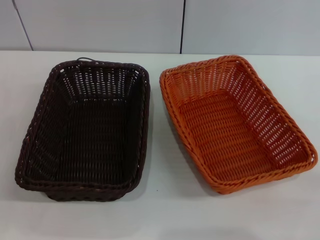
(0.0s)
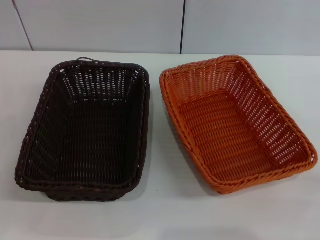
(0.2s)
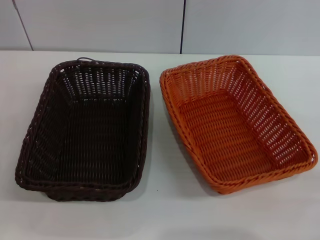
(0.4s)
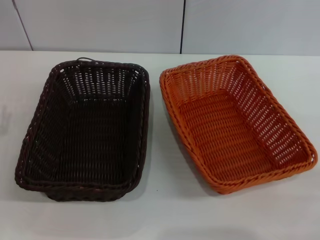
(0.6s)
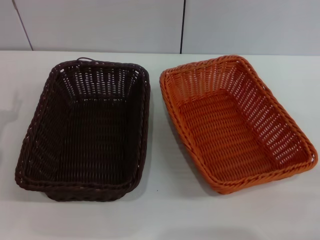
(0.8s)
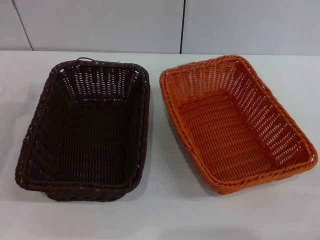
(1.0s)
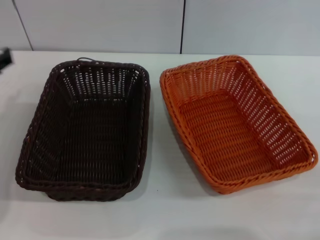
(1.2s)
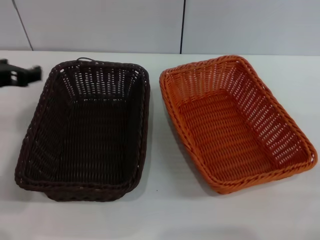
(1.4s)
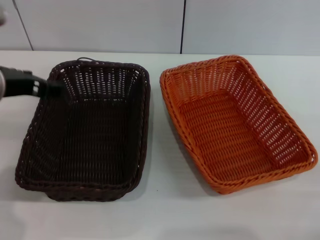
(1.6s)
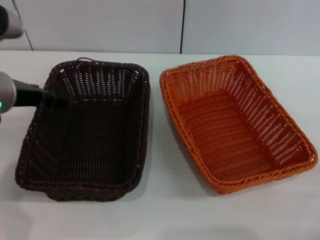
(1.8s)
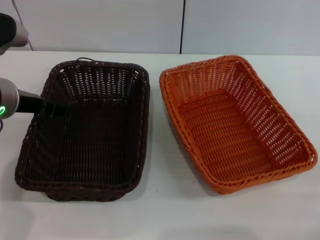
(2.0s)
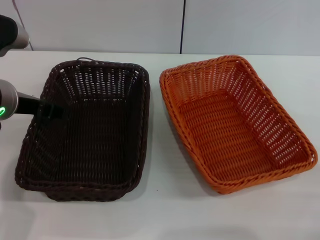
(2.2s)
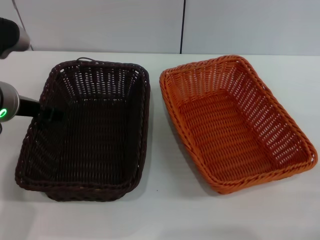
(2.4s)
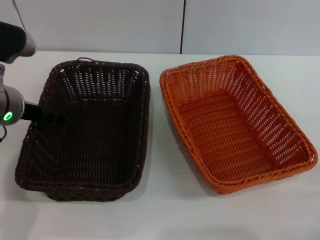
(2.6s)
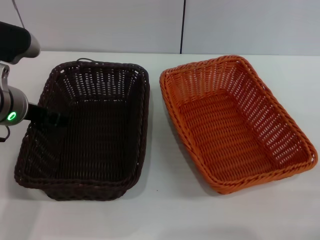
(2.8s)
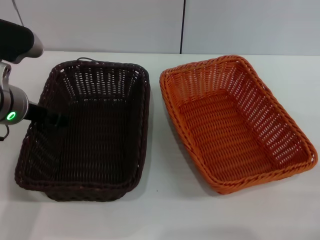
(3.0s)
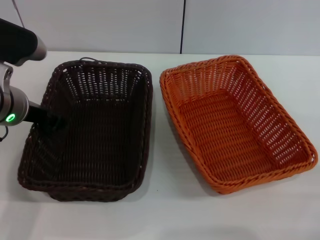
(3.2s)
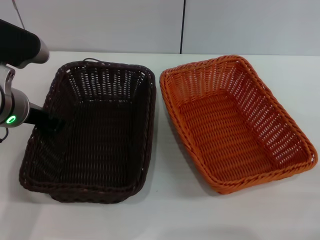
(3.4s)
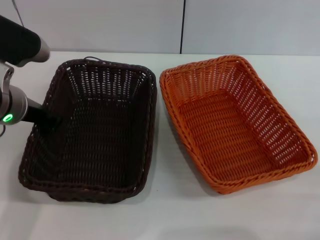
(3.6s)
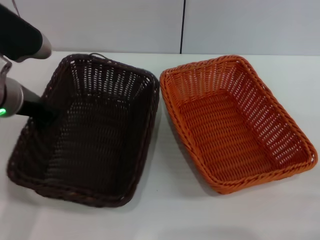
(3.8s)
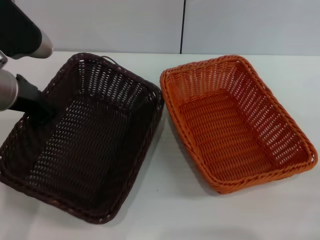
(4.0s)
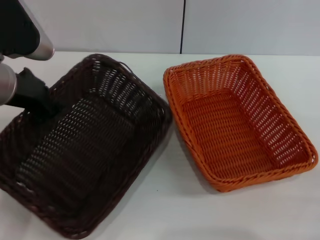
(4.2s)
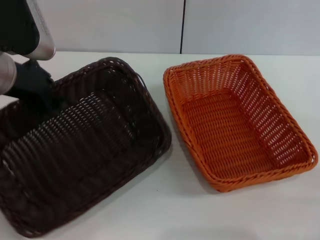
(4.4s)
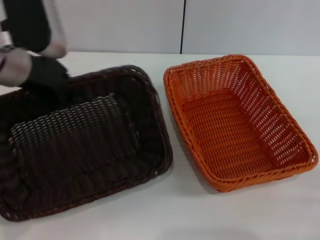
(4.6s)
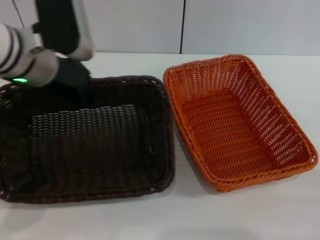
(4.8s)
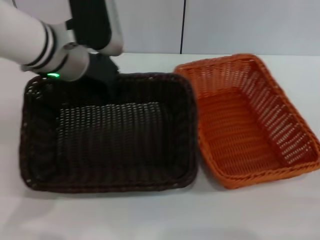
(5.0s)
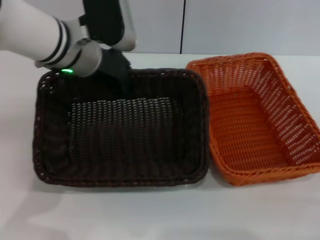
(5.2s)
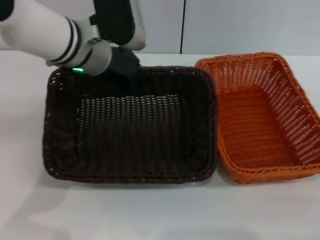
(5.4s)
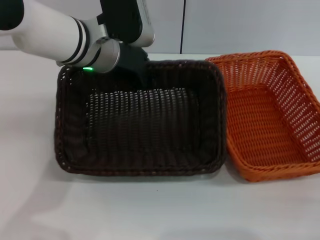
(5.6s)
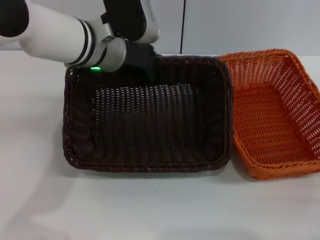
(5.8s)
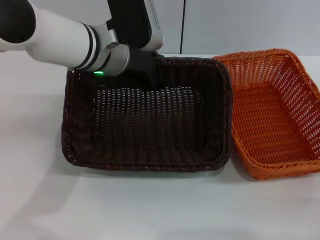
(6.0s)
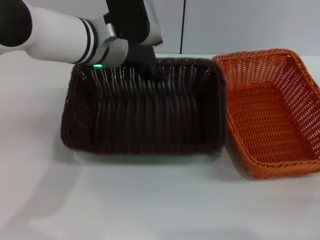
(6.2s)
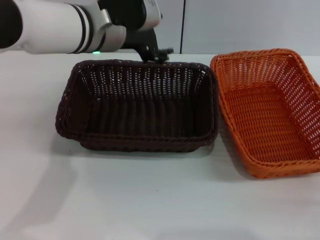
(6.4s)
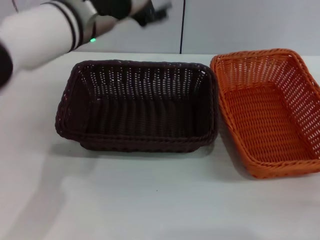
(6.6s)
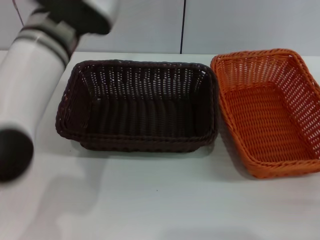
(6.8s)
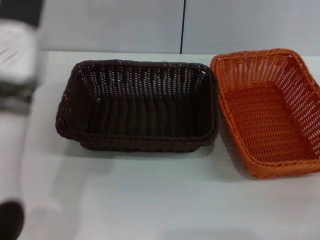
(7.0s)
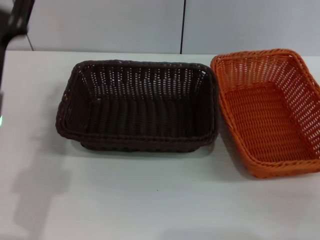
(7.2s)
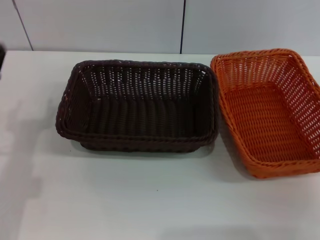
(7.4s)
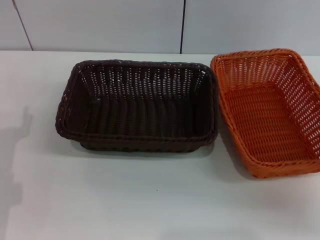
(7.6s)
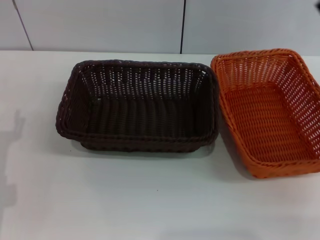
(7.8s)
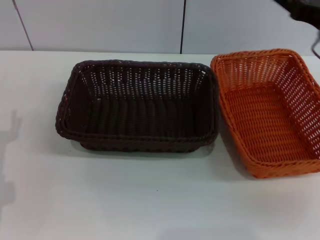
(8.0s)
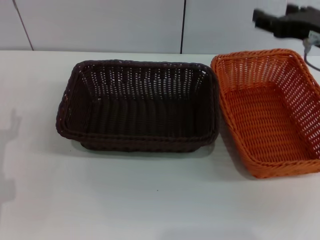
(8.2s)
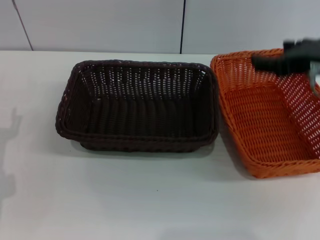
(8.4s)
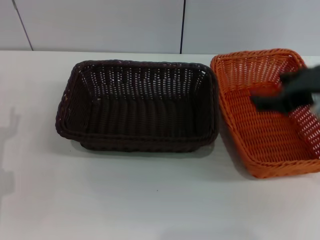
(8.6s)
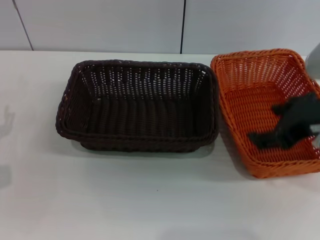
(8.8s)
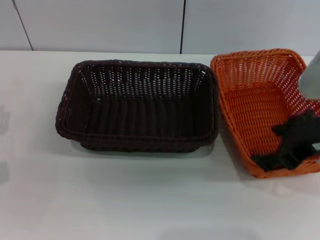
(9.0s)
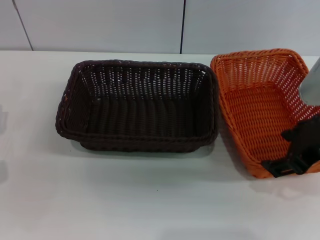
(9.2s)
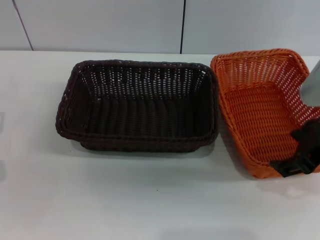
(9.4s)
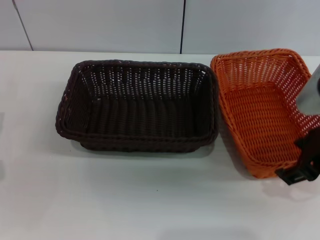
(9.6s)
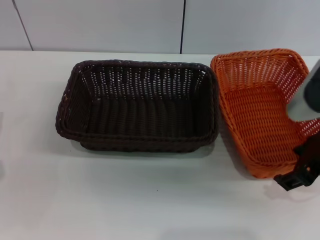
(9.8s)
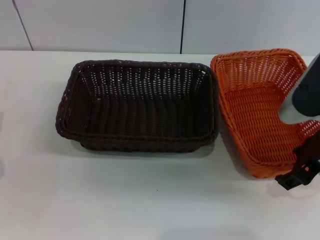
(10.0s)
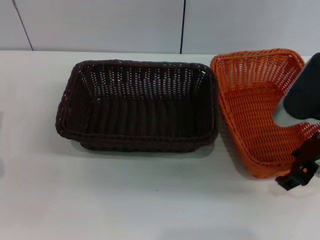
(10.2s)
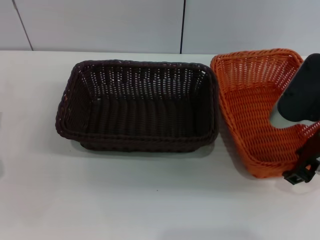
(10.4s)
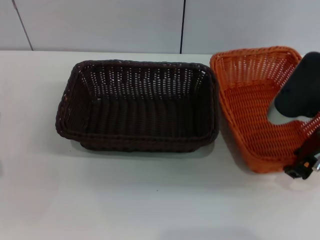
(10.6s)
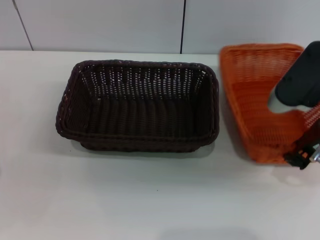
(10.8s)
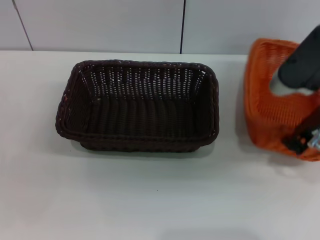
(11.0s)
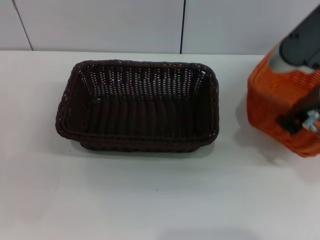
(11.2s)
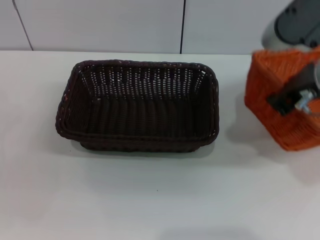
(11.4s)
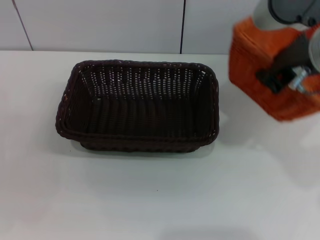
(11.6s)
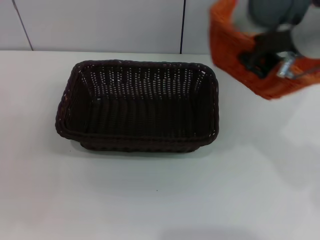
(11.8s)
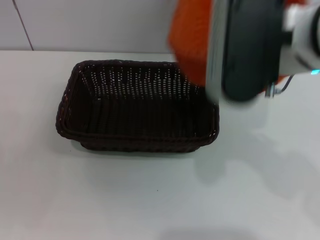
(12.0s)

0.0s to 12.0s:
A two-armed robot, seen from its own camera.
Step, 0.0s to 3.8s: Pick up the dark basket with the left gripper.
Step, 4.2s to 6.2s: Place the dark basket in the center of view with the left gripper.
Step, 6.4s to 11.0s: Pick up the light basket with the right gripper.
0.0s to 1.6s: The left gripper heads upward, to the right and forward, covering approximately 20 cm.
1.6s to 3.0s: The left gripper moves approximately 5 cm.
3.0s to 4.4s: The left gripper heads upward, covering approximately 5 cm, and closes.
4.4s to 6.0s: The left gripper heads to the right and forward, covering some 15 cm.
6.0s to 7.6s: The left gripper goes roughly 30 cm to the left, backward and downward, and opens, while the right gripper goes about 15 cm forward, upward and to the left.
7.6s to 9.0s: The right gripper moves upward and to the left, roughly 15 cm.
9.0s to 10.4s: The right gripper heads downward, covering about 5 cm.
10.4s to 12.0s: The right gripper goes some 15 cm upward and to the left, and closes up.

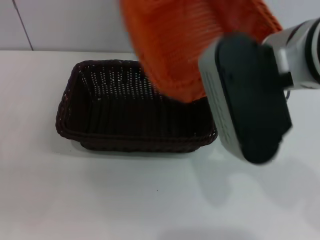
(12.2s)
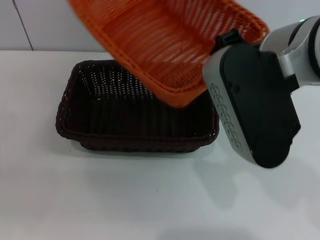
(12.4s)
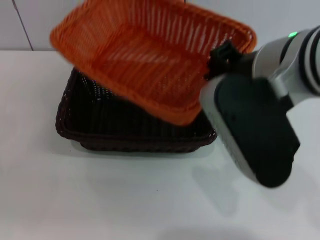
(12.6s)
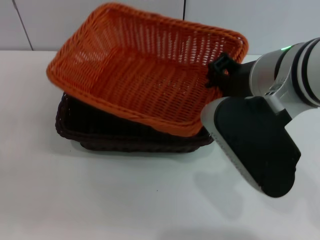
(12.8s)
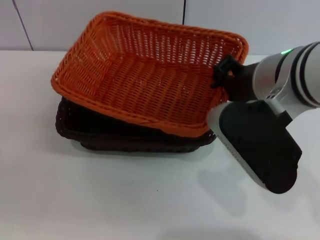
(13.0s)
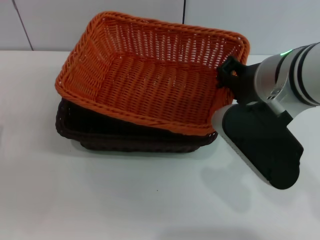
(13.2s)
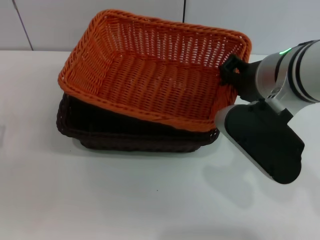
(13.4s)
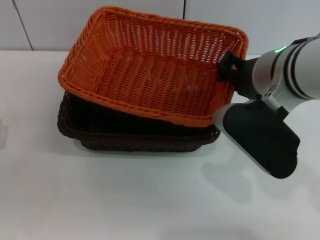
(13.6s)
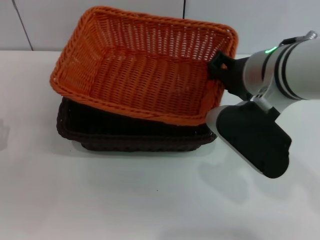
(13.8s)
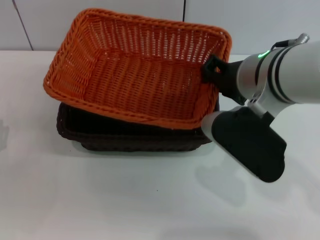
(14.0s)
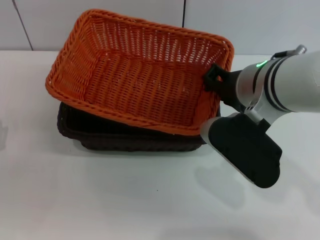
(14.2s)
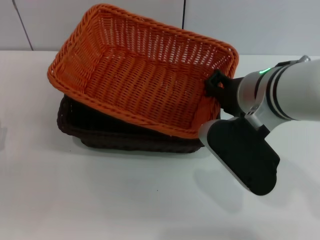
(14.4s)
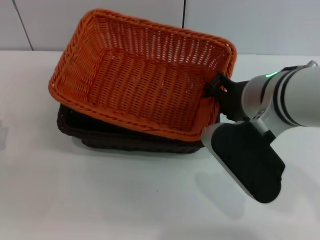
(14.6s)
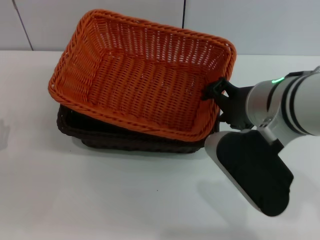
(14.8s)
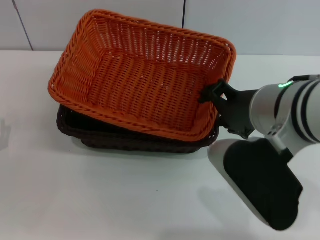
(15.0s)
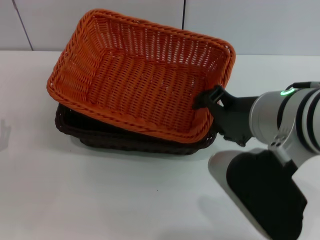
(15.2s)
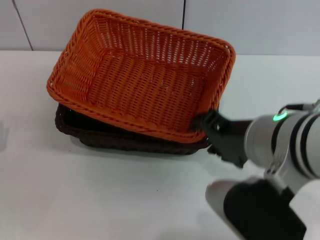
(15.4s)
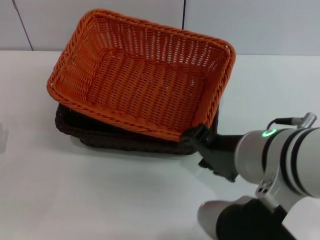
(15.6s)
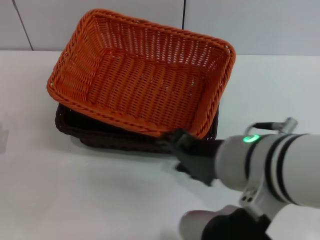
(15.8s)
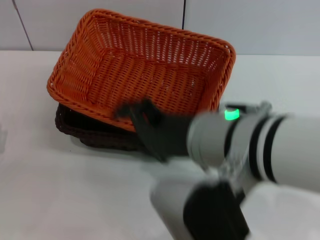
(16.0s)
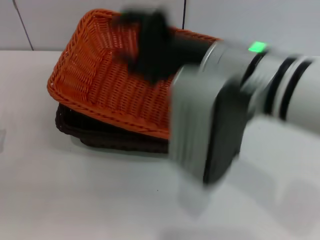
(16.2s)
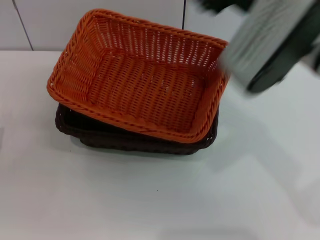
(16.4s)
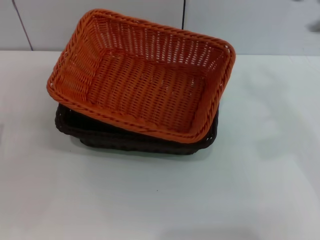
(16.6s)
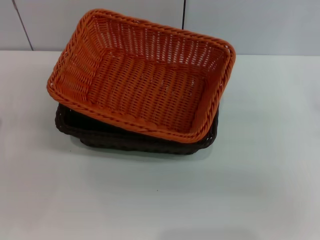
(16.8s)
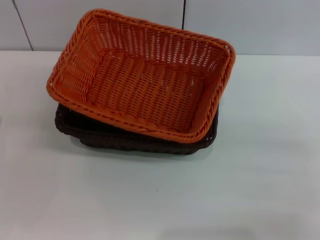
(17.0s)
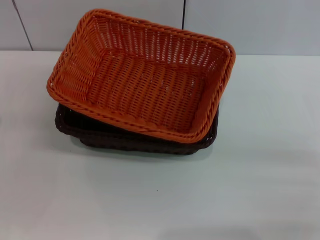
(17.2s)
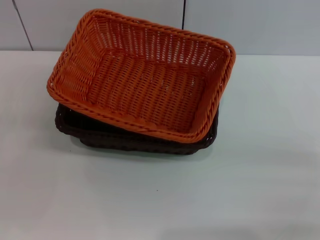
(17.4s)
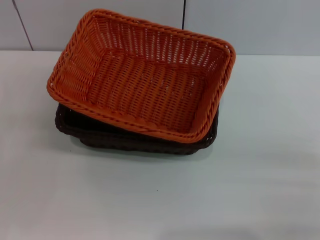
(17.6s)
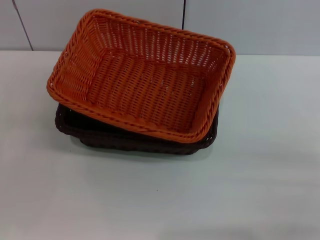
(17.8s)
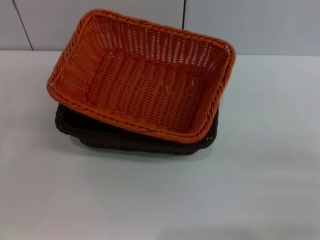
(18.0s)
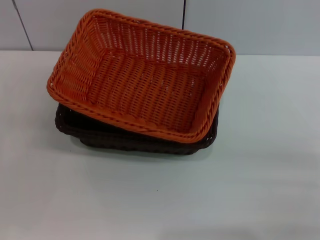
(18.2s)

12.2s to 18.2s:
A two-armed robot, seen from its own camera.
Step, 12.2s to 15.2s: Place the light basket on the dark basket with the right gripper.
12.2s to 13.8s: The right gripper heads downward, covering about 5 cm.
13.8s to 15.2s: The right gripper travels backward by approximately 5 cm, and opens its fingers.
15.2s to 16.6s: The right gripper is displaced to the right and forward by approximately 10 cm.
16.6s to 18.2s: The right gripper shifts some 20 cm downward, to the right and backward.

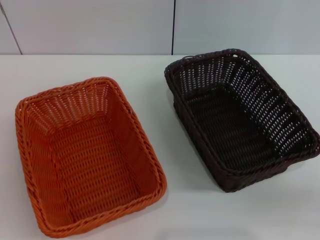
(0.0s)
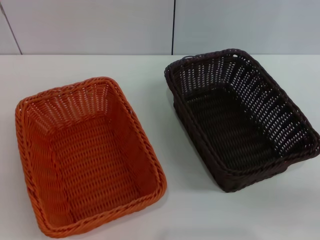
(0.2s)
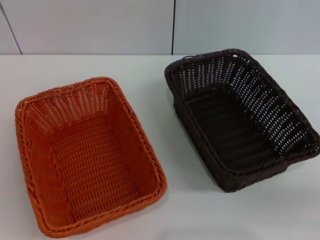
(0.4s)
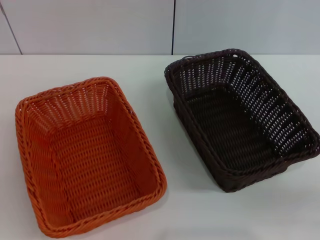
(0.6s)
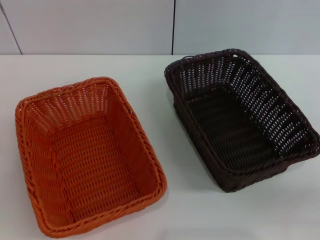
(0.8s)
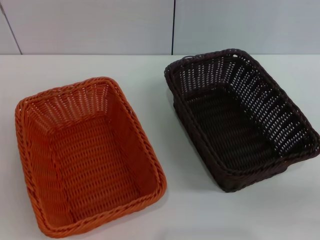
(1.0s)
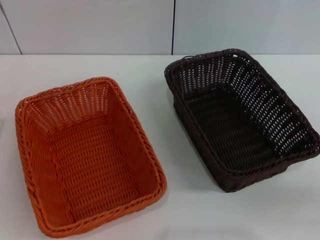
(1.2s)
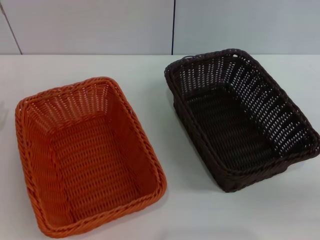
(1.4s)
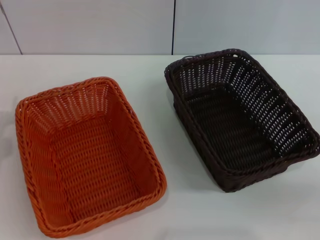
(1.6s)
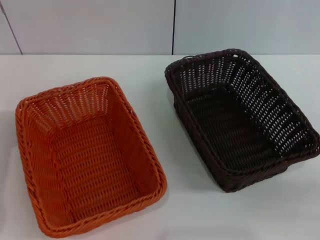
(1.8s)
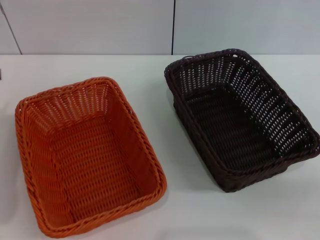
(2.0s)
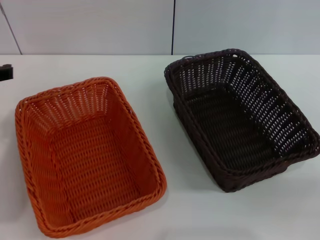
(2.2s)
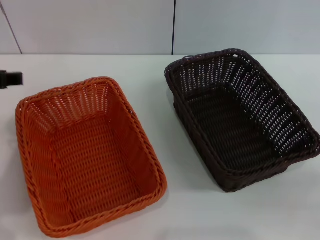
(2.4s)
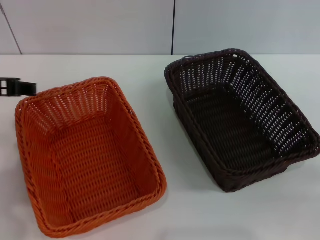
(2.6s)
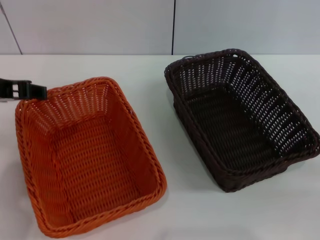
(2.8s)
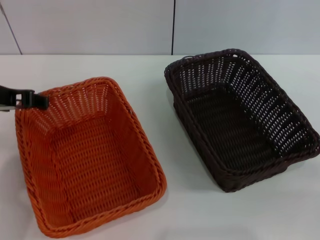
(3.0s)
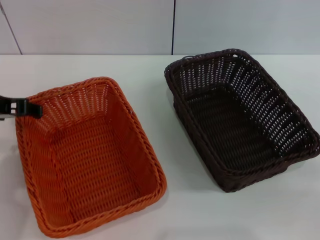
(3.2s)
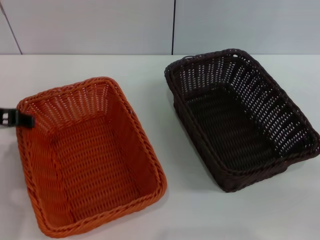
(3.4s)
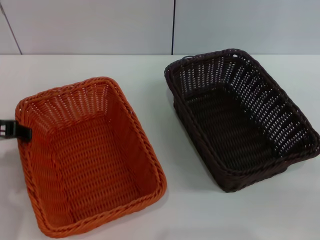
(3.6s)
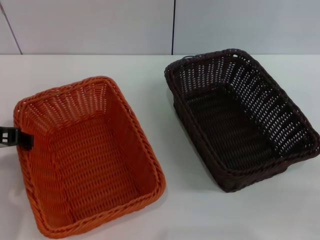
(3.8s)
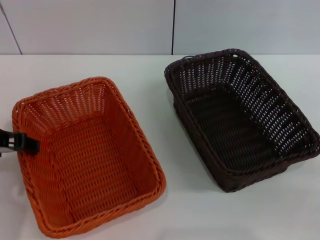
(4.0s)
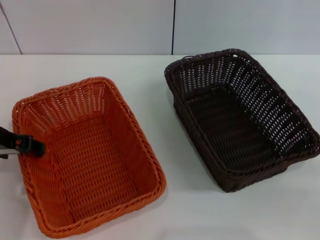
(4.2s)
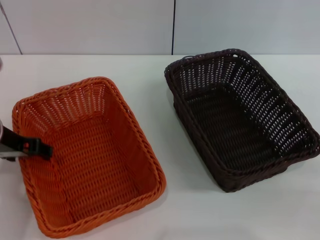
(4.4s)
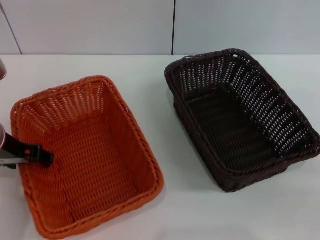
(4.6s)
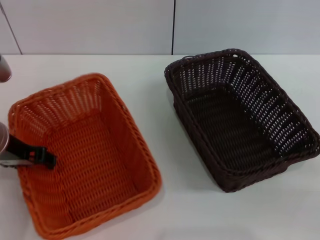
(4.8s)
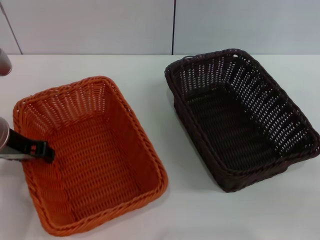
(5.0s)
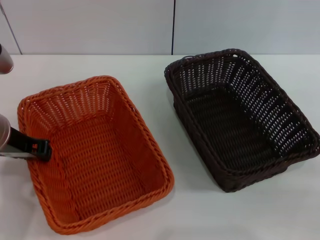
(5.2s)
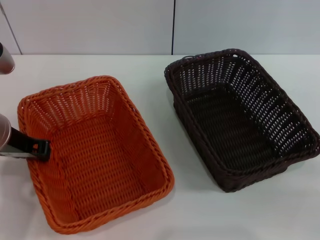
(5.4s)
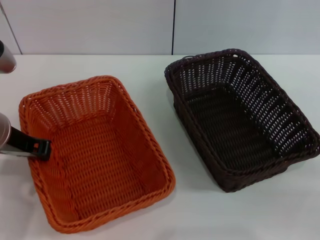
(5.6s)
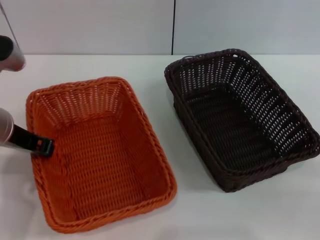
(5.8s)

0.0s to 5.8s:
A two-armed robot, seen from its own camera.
1.4s to 2.8s: The left gripper heads upward and to the right, covering approximately 20 cm.
2.8s to 4.4s: The left gripper travels downward by about 5 cm.
4.4s to 5.8s: The left gripper closes.
